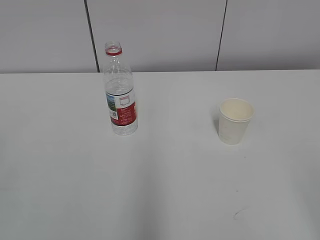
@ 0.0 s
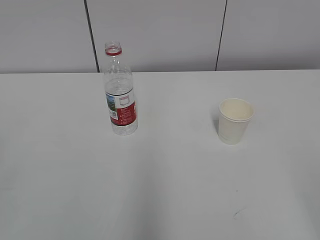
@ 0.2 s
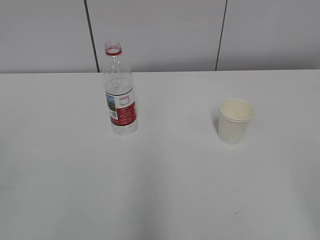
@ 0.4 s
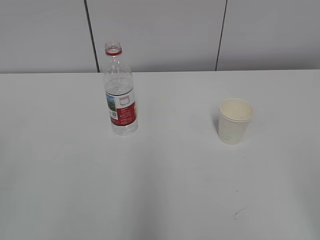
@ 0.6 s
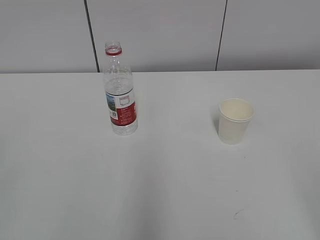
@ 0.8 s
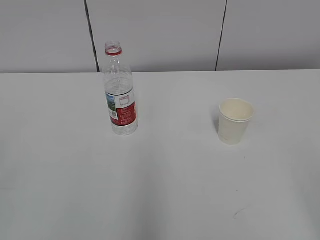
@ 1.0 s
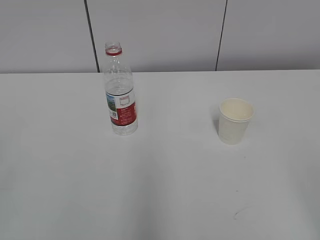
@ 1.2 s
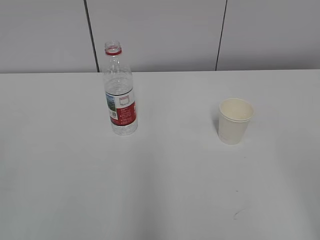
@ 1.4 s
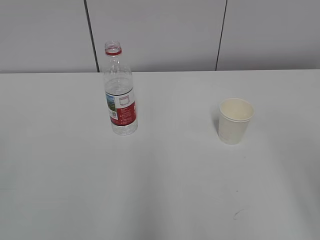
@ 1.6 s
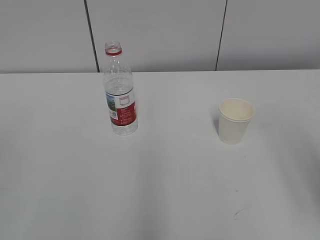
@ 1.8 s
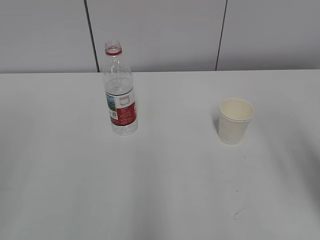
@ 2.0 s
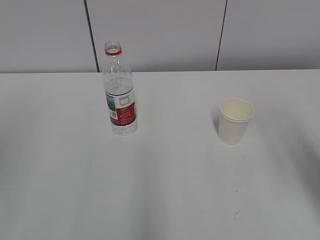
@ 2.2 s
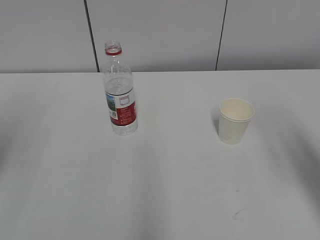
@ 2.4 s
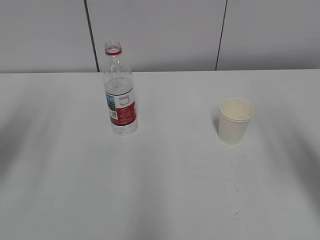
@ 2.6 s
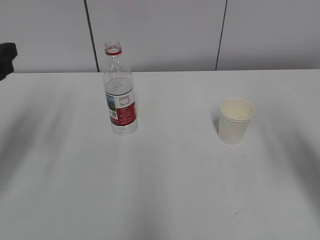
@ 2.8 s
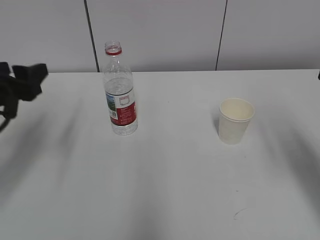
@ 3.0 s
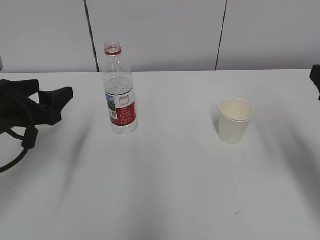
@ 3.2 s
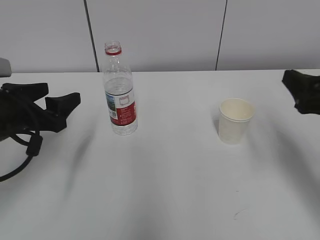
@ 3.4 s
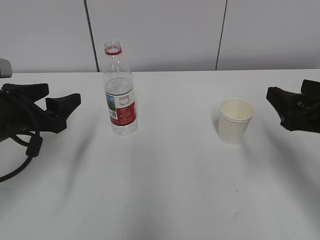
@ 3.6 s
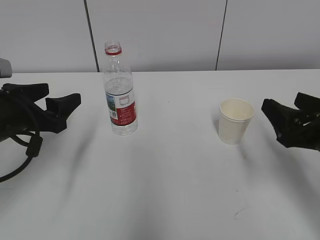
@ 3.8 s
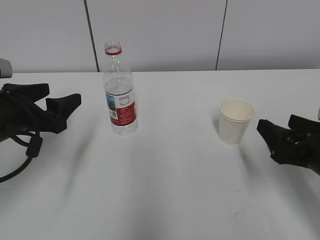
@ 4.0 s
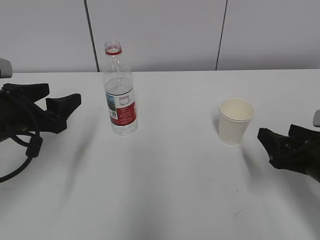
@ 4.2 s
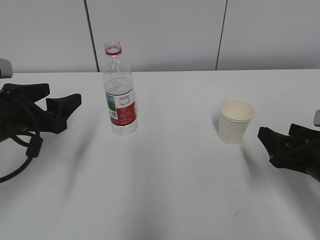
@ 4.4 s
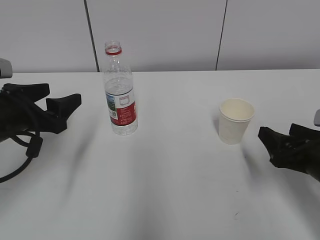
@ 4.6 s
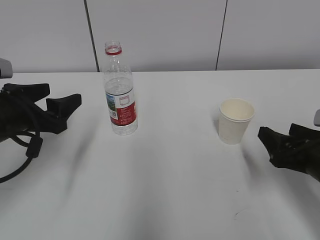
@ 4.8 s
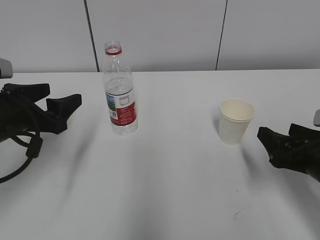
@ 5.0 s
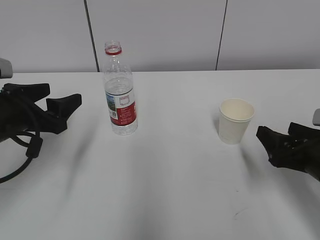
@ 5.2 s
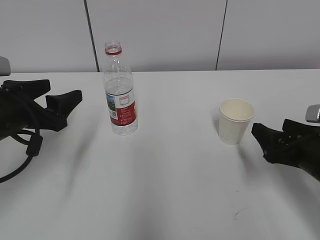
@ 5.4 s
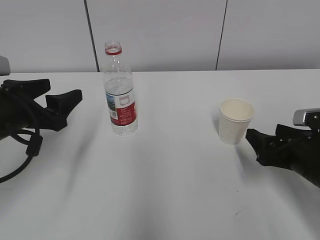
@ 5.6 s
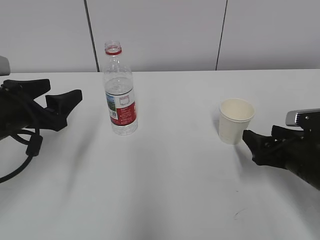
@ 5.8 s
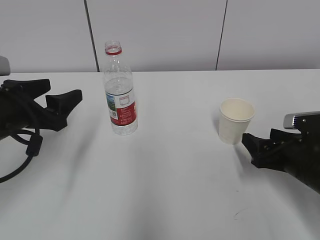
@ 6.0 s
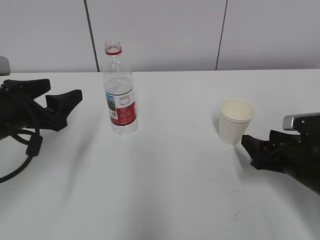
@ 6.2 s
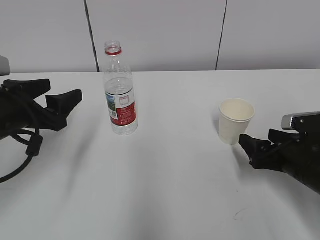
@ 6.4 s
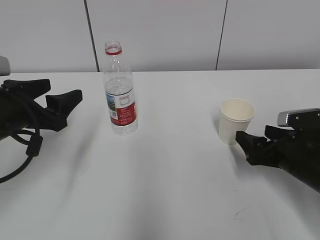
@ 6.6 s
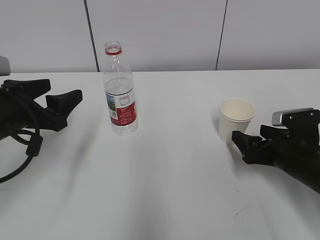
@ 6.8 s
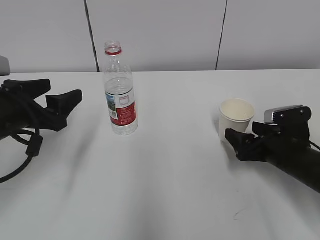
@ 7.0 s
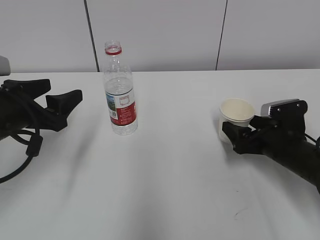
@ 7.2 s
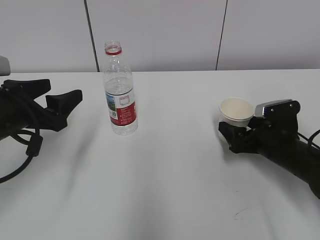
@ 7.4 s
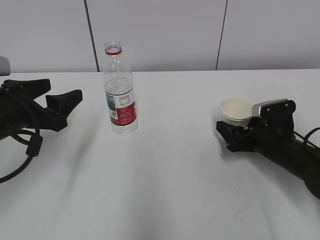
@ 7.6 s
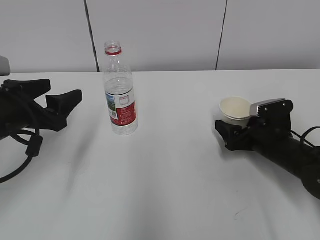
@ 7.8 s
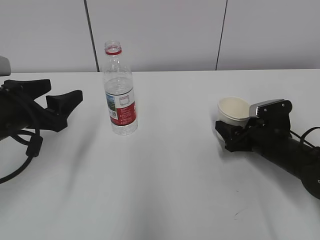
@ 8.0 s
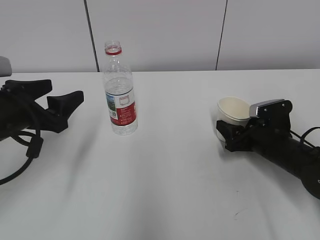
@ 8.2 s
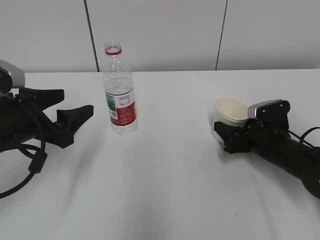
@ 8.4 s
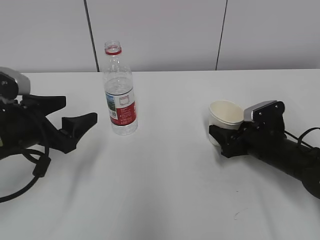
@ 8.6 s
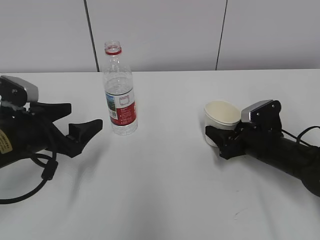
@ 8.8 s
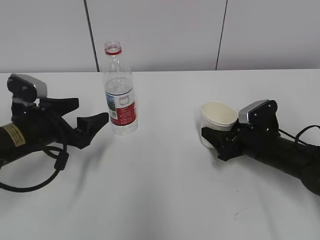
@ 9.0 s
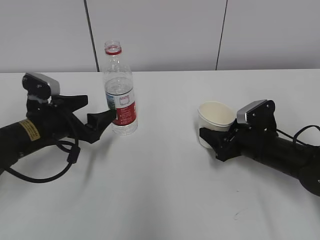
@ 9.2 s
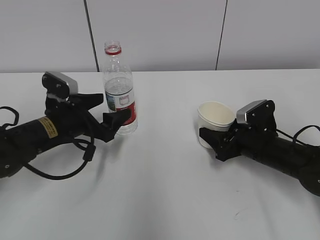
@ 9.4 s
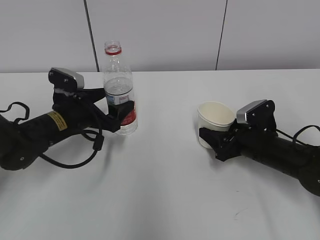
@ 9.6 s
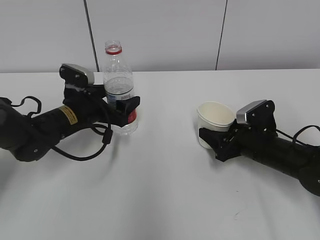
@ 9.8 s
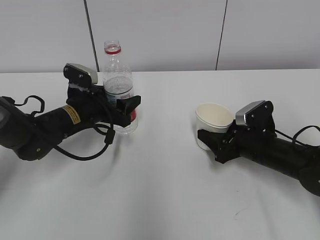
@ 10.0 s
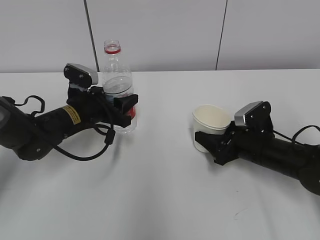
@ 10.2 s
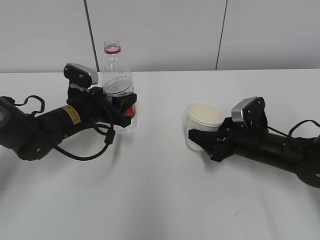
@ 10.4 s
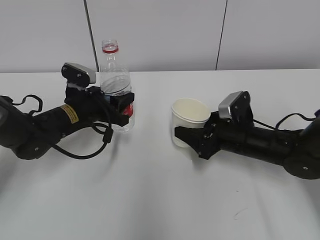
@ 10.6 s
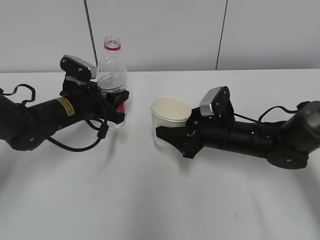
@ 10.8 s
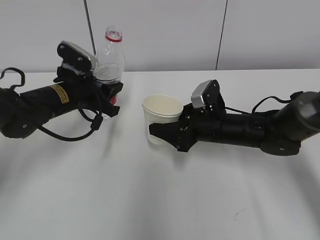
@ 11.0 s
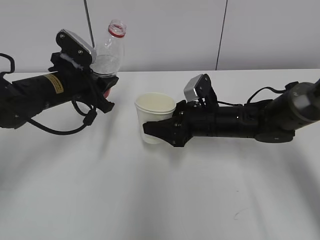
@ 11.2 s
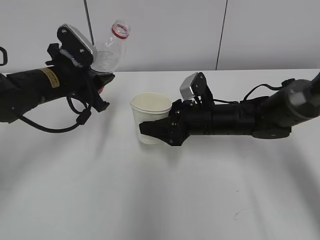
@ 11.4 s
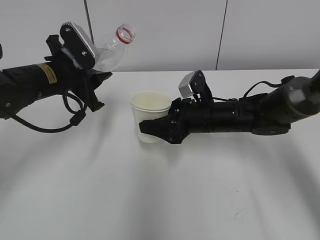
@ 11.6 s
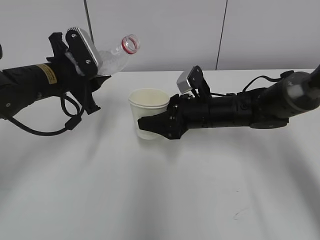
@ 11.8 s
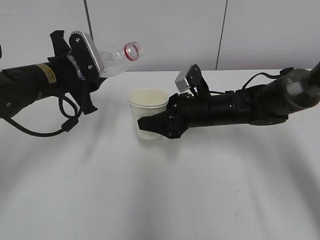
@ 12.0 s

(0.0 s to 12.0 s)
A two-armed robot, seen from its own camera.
Step, 0.0 s - 6.8 s: Grab the paper cup with the right hand.
Step, 7.0 s - 8.6 s: Grab the water bottle with the left hand.
Step, 8.8 s - 11.2 s: Lift the paper cup with the right hand.
1.6 s - 3.0 s: The left gripper moves forward, approximately 30 cm; the right gripper moves forward, roughly 15 cm.
3.0 s - 4.4 s: The left gripper changes place by roughly 5 cm. Meanwhile the right gripper moves downward, roughly 15 cm.
4.4 s - 6.0 s: The right gripper ends up some 5 cm from where it was.
6.0 s - 7.6 s: The right gripper travels forward by about 5 cm.
7.6 s - 9.0 s: The right gripper closes. The left gripper is displaced downward by about 5 cm.
9.0 s - 10.4 s: The left gripper goes roughly 10 cm forward and to the right, and closes.
10.4 s - 12.0 s: The left gripper moves upward, roughly 10 cm, while the right gripper travels to the left, forward and upward by about 10 cm.

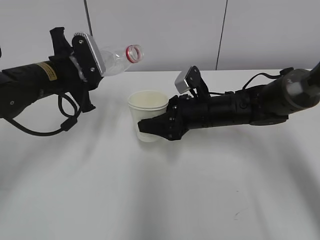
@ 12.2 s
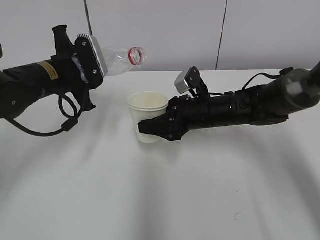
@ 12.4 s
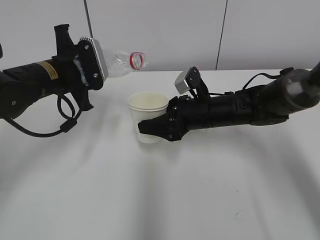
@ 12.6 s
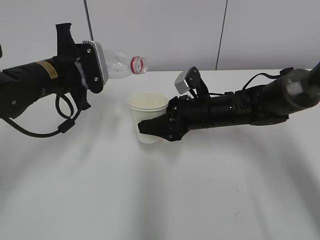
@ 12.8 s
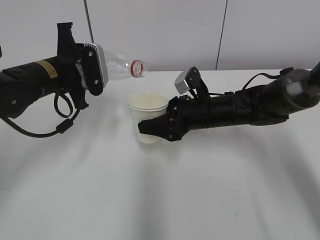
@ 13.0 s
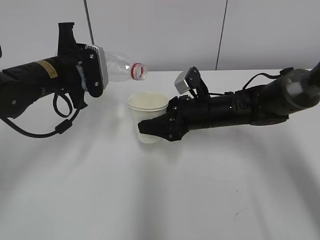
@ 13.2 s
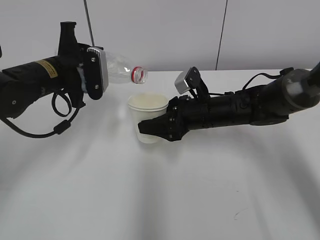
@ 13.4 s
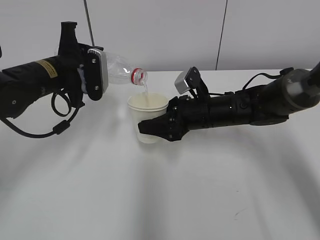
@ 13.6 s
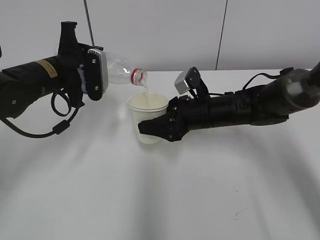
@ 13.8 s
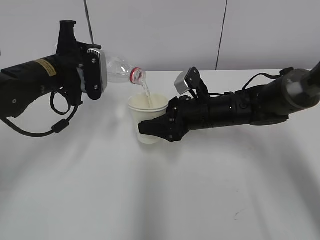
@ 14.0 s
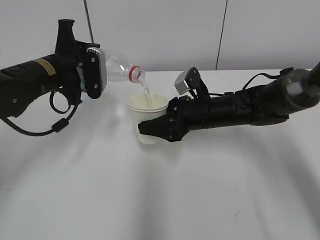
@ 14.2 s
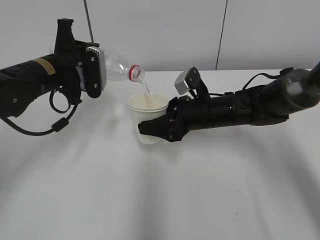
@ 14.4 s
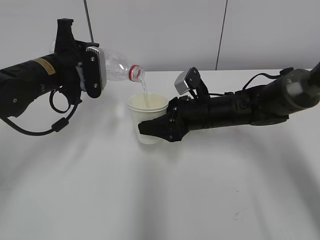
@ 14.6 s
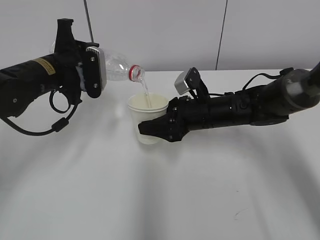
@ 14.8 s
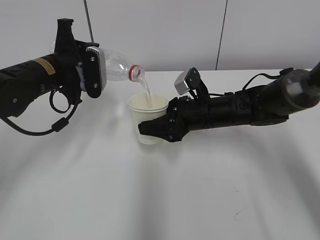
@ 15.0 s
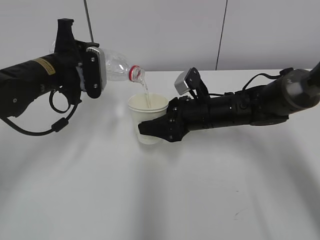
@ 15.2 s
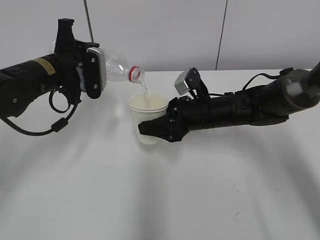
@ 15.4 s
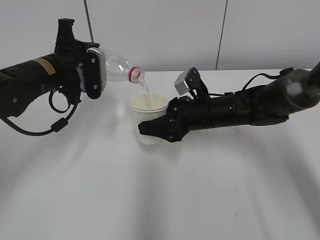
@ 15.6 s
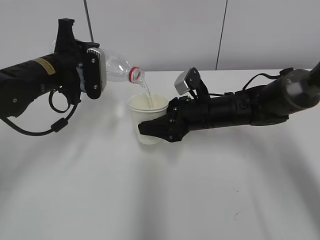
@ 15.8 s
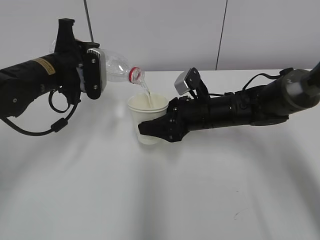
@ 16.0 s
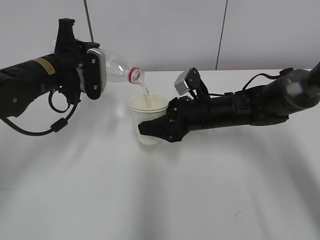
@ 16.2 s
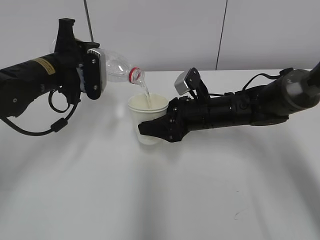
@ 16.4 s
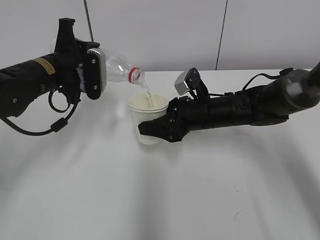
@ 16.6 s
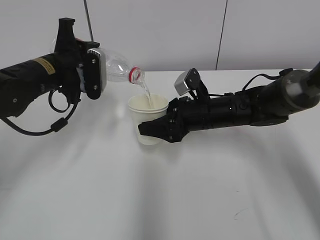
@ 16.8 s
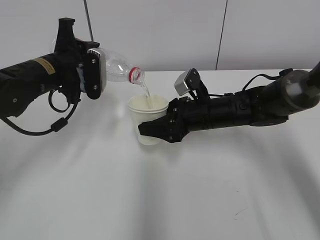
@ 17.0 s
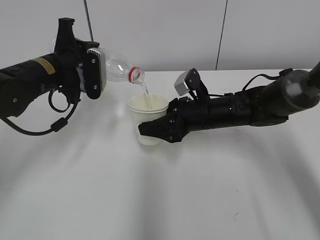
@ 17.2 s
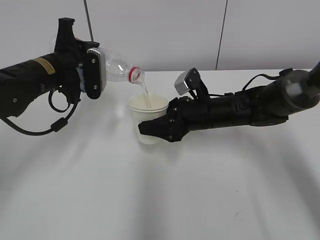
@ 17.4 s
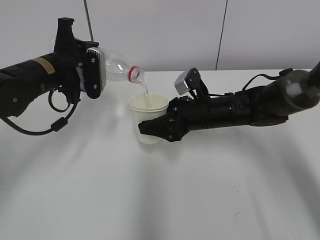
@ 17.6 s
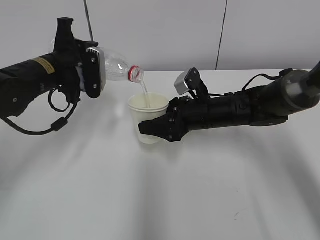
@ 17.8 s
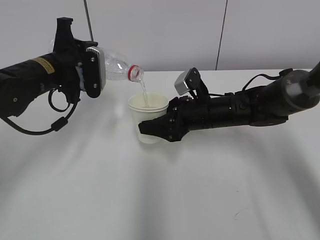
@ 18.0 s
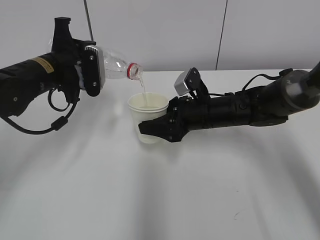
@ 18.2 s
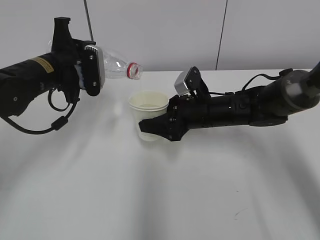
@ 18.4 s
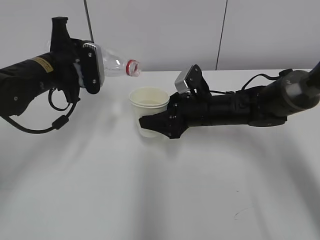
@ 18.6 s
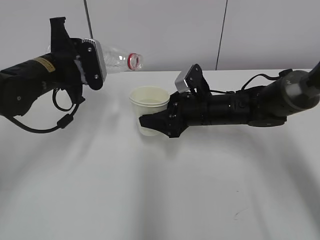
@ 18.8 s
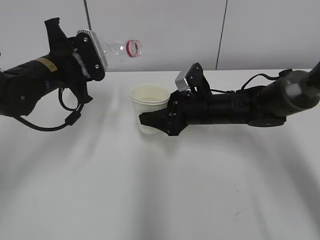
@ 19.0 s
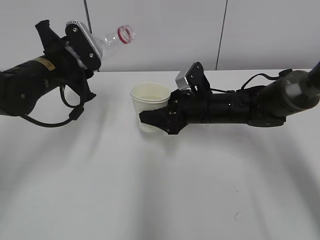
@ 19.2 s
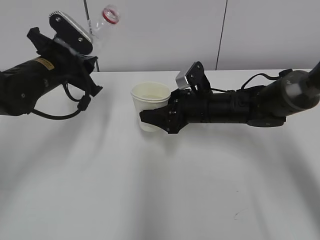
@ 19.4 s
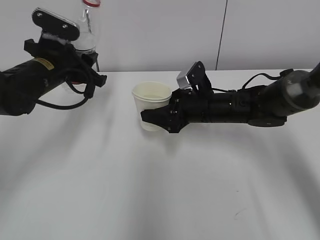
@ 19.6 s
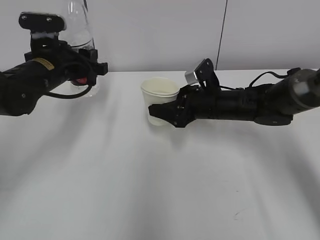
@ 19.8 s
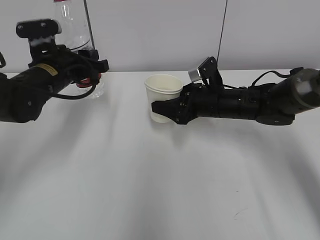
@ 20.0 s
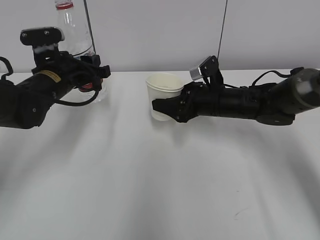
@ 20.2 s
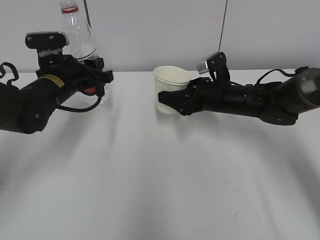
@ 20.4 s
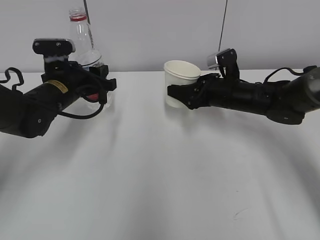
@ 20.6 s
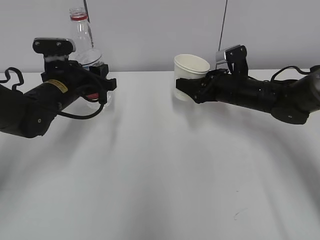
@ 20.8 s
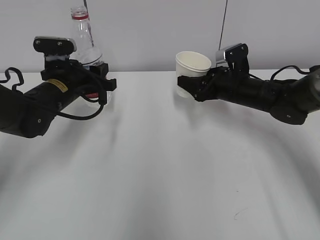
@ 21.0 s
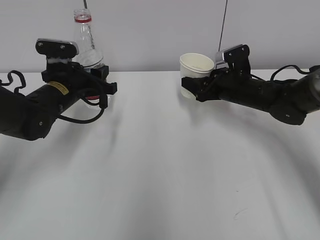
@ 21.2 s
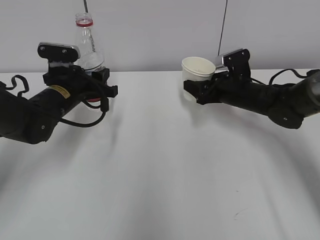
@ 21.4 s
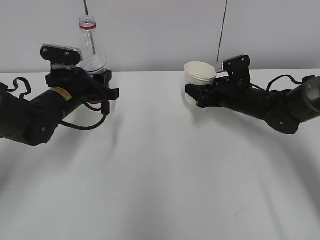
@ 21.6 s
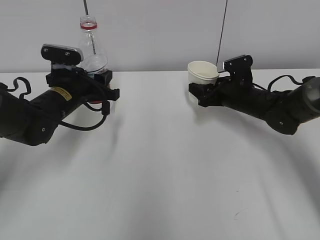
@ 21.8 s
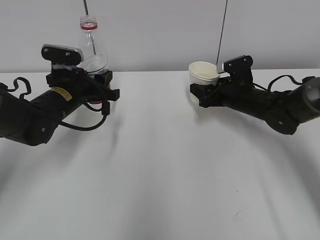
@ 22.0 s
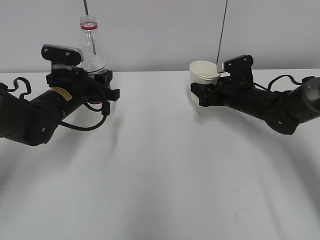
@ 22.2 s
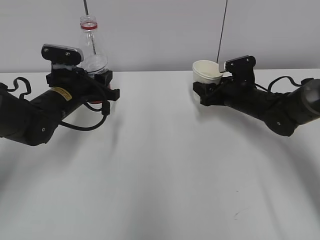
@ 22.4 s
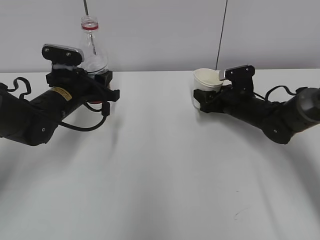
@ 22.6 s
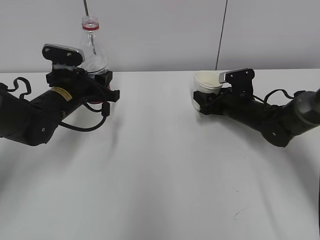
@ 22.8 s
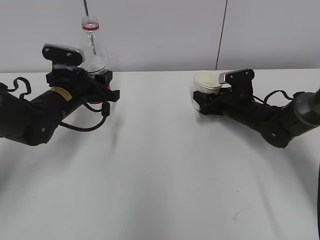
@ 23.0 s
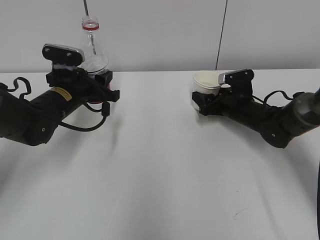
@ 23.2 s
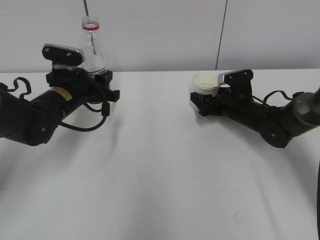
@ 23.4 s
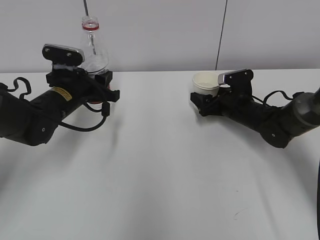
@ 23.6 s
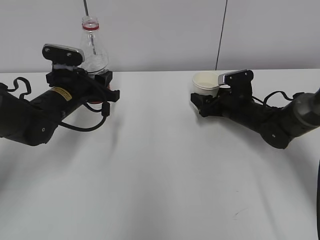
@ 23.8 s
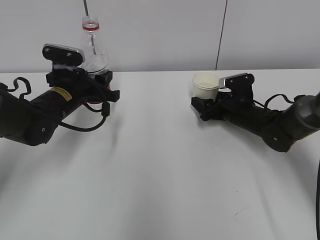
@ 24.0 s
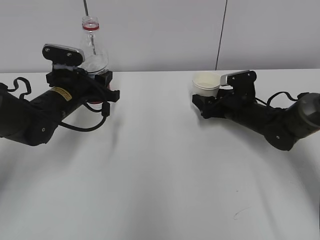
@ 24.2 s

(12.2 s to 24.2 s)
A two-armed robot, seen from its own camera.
Step, 12.2 s - 15.4 s: Fill water with the right hand.
Step, 12.2 s - 15.4 s: Pour water with the left hand.
Step, 16.4 s - 22.4 s: Place the paper cup with the right hand.
13.8 s - 18.2 s: Both grippers stay about where they are.
19.8 s - 21.2 s: The right gripper shifts some 5 cm to the right. Meanwhile the left gripper is displaced downward by approximately 5 cm.
21.2 s - 22.6 s: The right gripper goes approximately 5 cm downward.
22.6 s - 24.2 s: The right gripper opens up.
